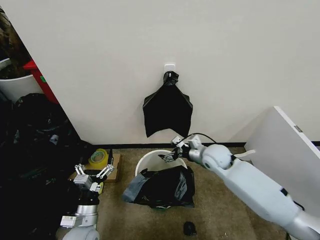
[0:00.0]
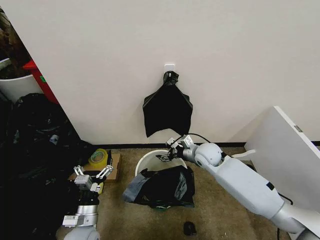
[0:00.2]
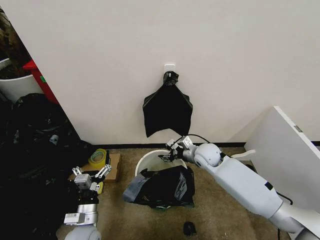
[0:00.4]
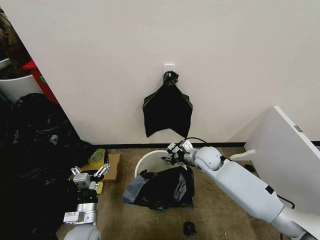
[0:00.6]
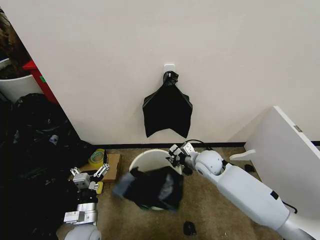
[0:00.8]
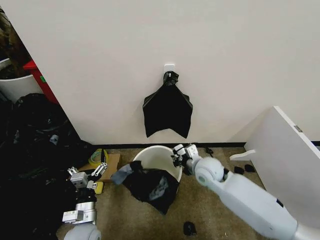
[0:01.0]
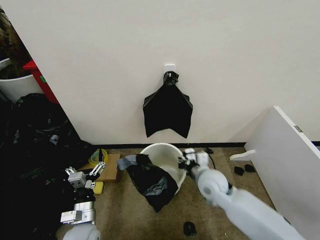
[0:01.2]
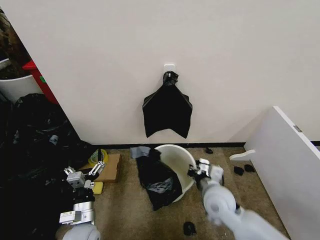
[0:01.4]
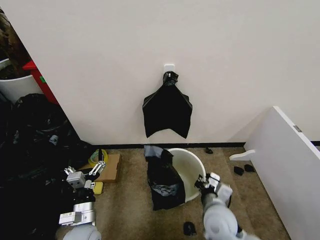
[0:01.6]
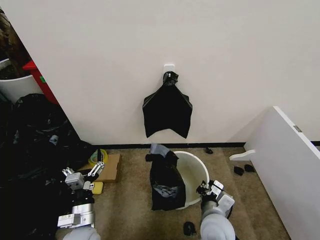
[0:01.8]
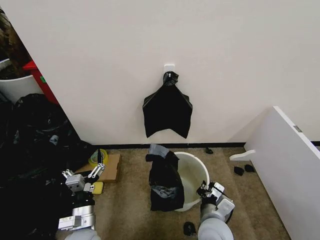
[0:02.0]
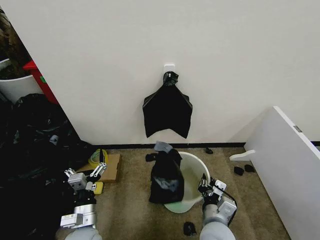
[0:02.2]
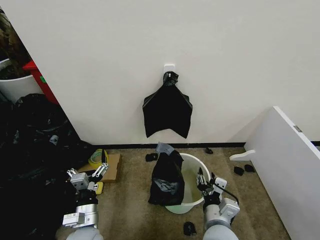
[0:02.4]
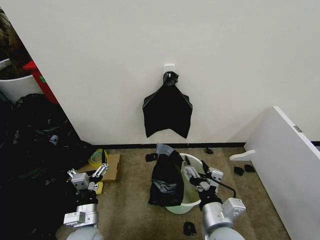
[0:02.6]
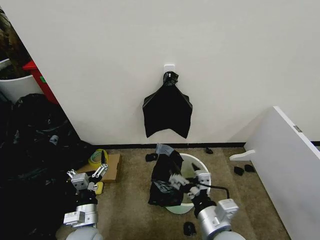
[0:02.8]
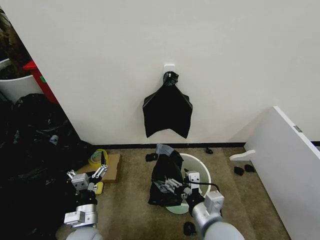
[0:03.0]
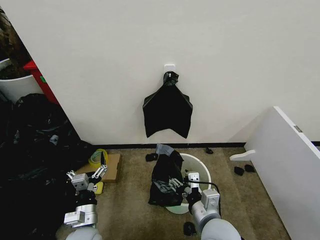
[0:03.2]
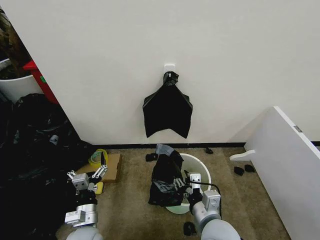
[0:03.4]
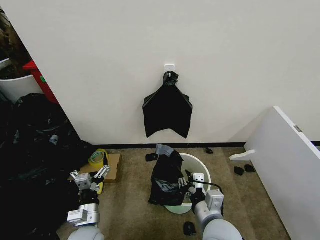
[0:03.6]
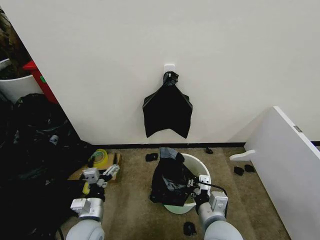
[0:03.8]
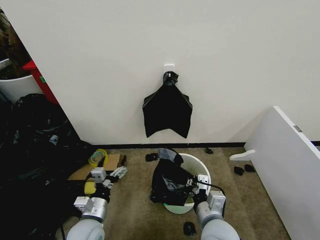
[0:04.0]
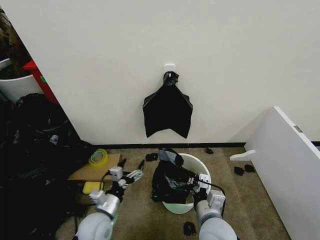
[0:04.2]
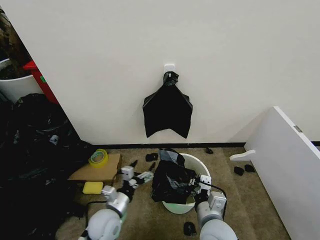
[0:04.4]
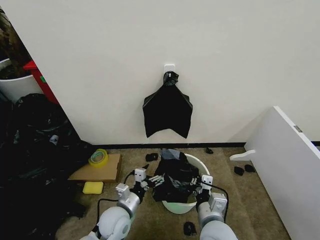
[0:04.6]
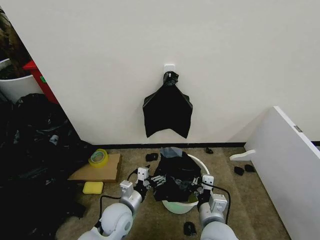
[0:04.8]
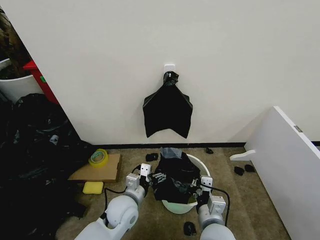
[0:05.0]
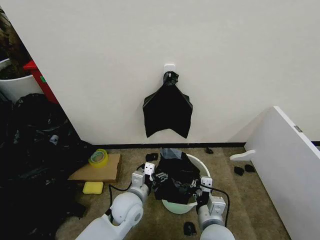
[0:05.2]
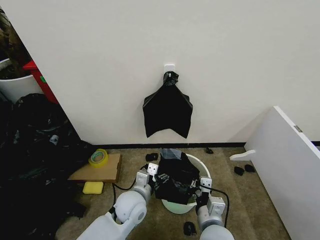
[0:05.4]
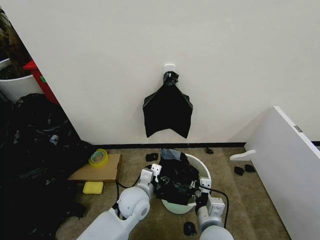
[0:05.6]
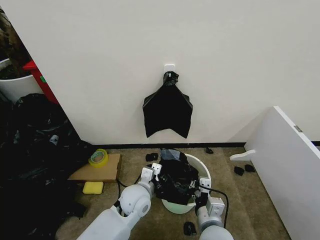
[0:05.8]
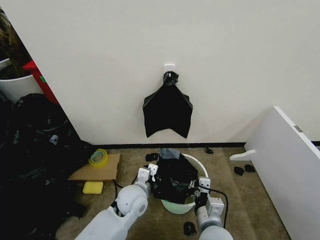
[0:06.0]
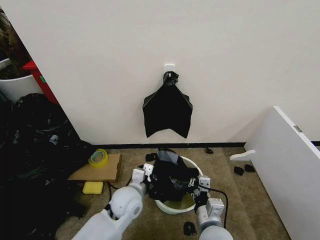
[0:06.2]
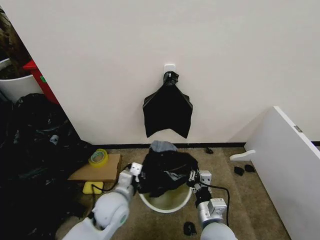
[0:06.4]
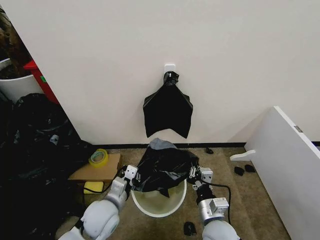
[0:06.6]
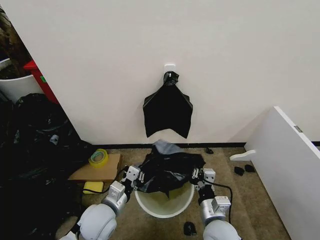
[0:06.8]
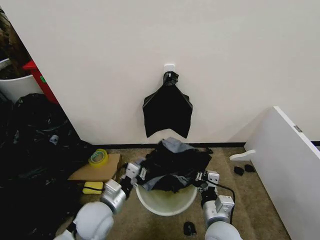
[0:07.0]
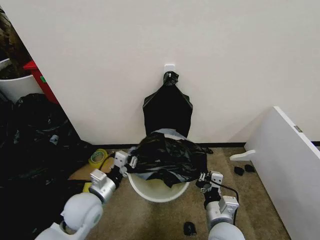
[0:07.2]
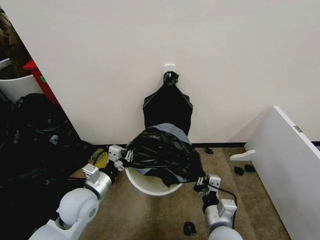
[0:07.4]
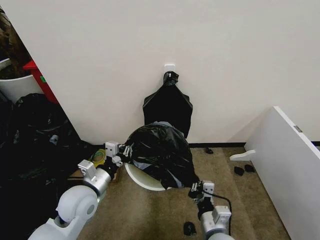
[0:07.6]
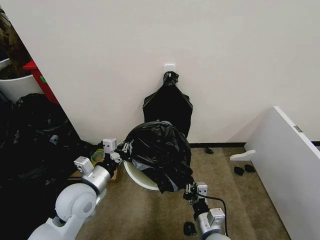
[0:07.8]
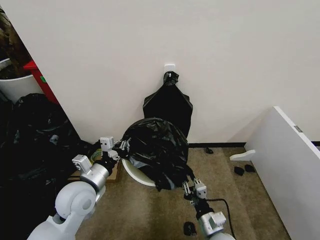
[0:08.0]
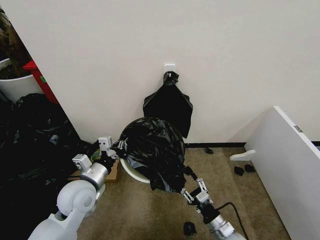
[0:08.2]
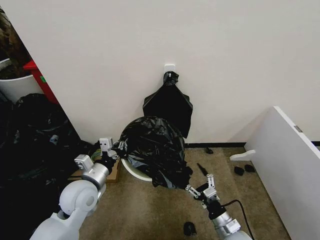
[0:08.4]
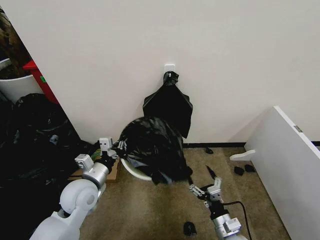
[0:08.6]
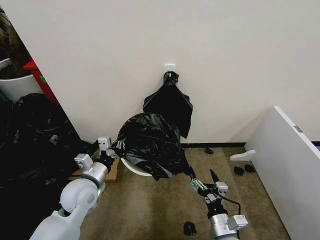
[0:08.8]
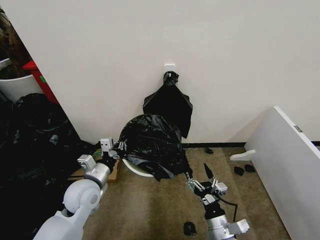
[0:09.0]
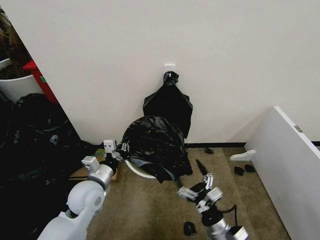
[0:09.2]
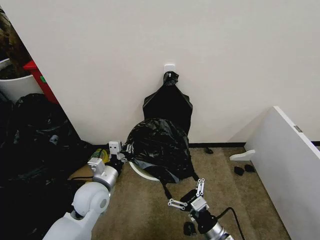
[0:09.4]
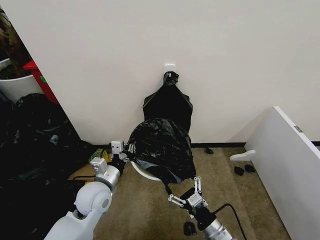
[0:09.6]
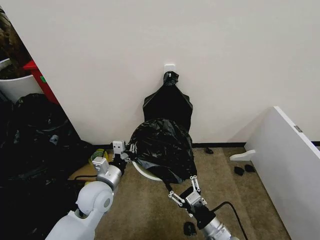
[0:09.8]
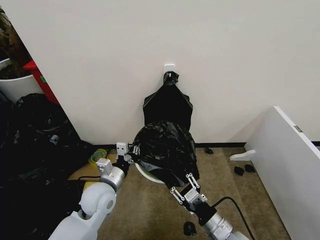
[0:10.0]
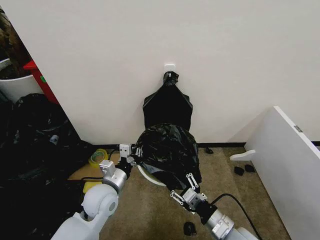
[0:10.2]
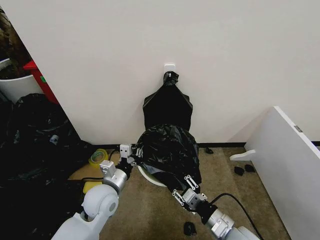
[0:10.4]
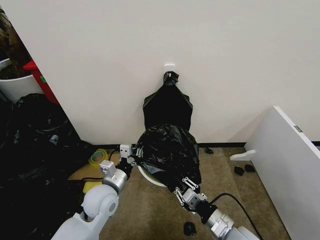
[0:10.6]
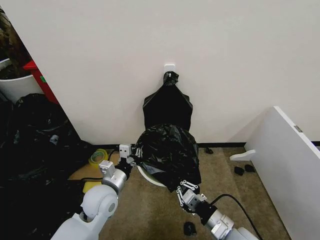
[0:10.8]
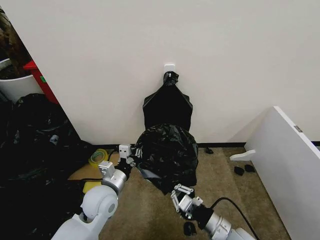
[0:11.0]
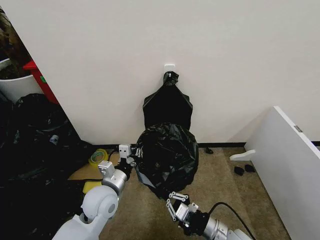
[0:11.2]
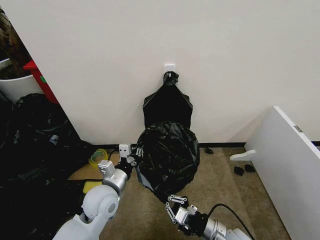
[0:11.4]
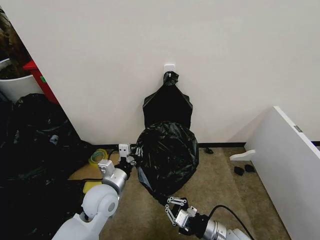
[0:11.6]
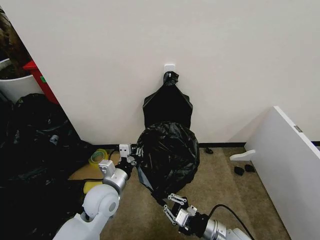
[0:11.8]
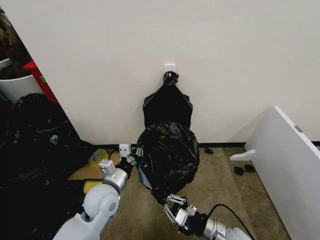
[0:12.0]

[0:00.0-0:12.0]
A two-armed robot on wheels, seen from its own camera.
Task of the whole recording: Place the garbage bag over the trash bin.
0:00.0 to 0:01.6: The right gripper moves backward, some 20 cm, and closes its fingers.
0:01.6 to 0:03.0: The right gripper moves upward and backward, approximately 10 cm, and opens its fingers.
0:03.0 to 0:04.4: The left gripper shifts by some 5 cm. Meanwhile the right gripper travels downward by approximately 5 cm, and closes up.
0:04.4 to 0:06.0: The left gripper is displaced to the right and forward by about 10 cm, and closes its fingers.
0:06.0 to 0:07.6: The left gripper goes some 15 cm to the left and upward.
0:07.6 to 0:09.0: The right gripper opens.
0:09.0 to 0:10.4: The right gripper heads upward, covering roughly 5 cm, and closes its fingers, while the left gripper goes about 5 cm to the right.
0:10.4 to 0:12.0: The right gripper closes its fingers.

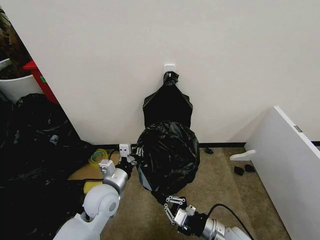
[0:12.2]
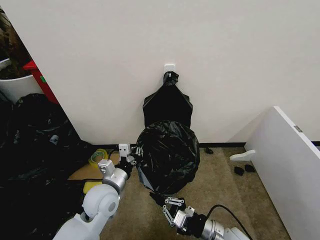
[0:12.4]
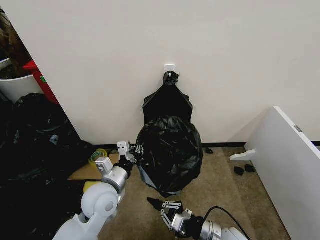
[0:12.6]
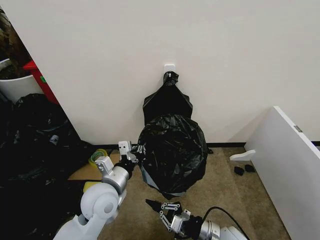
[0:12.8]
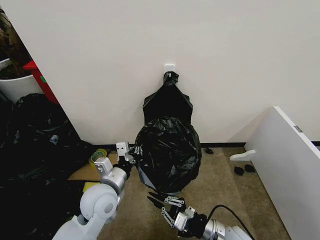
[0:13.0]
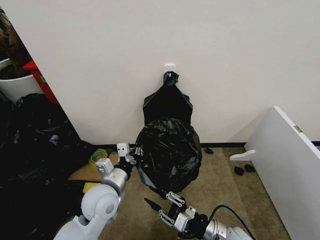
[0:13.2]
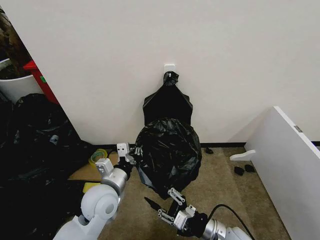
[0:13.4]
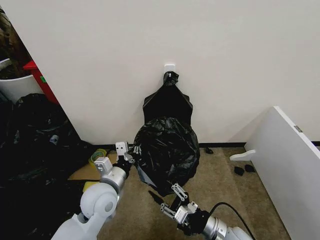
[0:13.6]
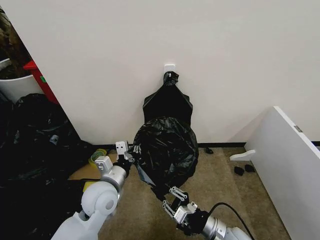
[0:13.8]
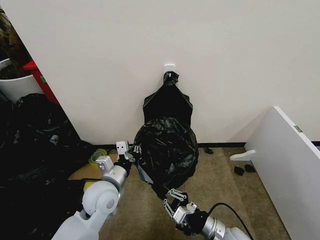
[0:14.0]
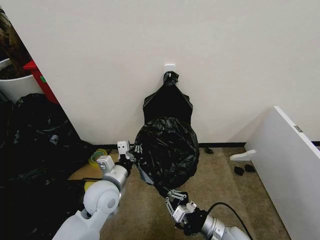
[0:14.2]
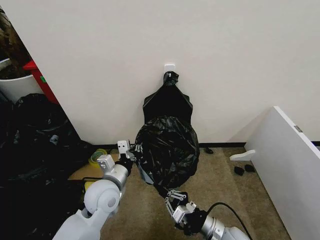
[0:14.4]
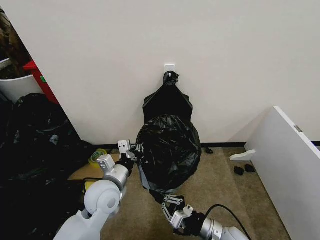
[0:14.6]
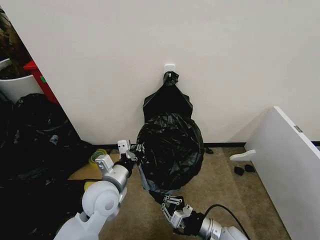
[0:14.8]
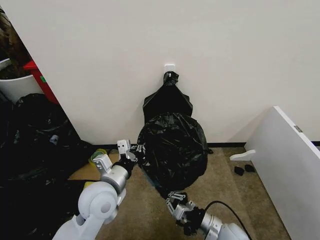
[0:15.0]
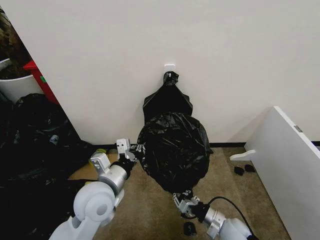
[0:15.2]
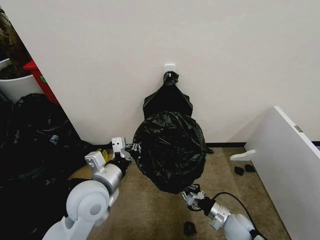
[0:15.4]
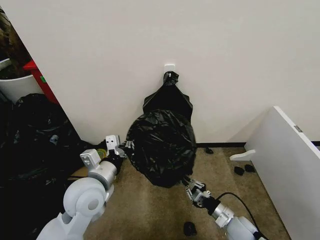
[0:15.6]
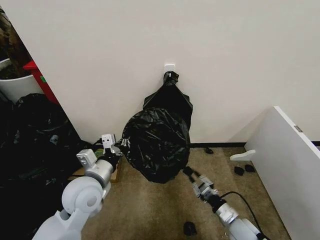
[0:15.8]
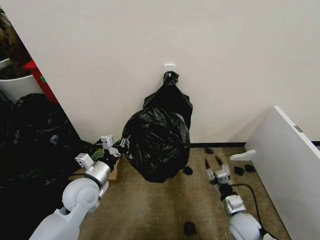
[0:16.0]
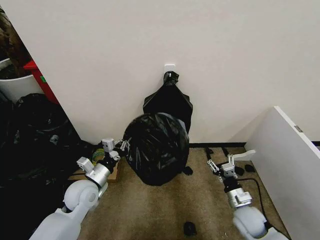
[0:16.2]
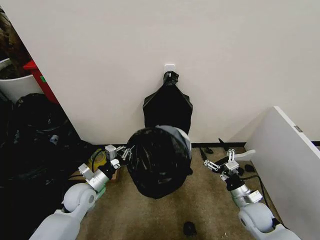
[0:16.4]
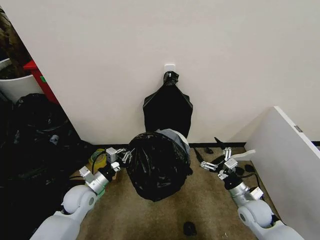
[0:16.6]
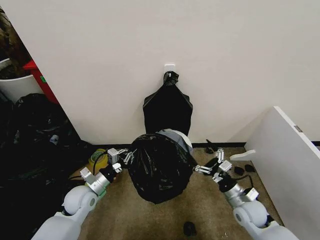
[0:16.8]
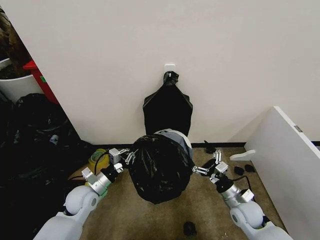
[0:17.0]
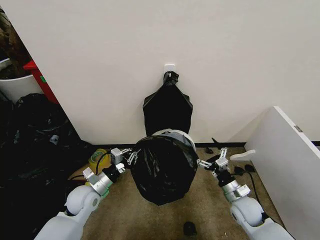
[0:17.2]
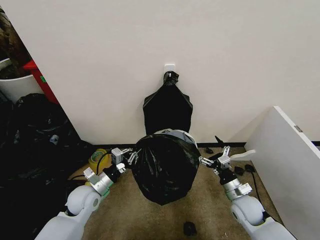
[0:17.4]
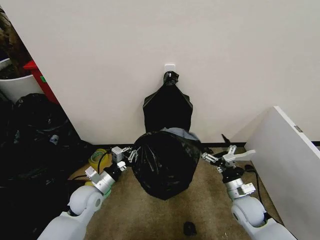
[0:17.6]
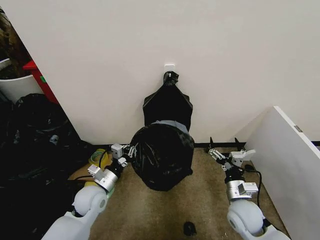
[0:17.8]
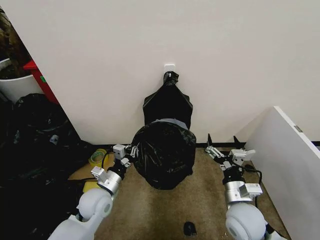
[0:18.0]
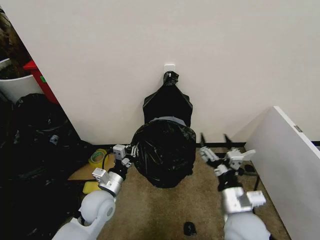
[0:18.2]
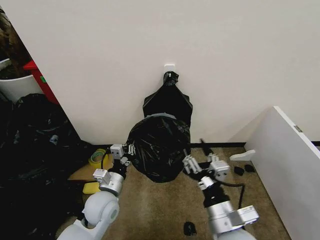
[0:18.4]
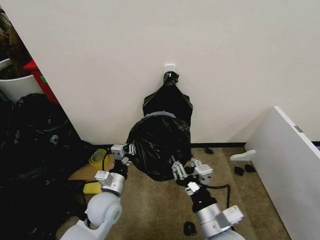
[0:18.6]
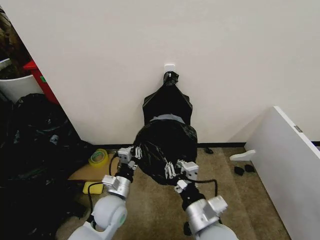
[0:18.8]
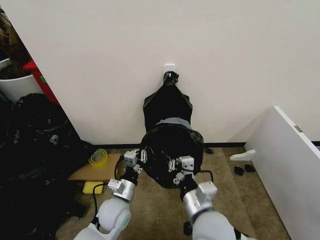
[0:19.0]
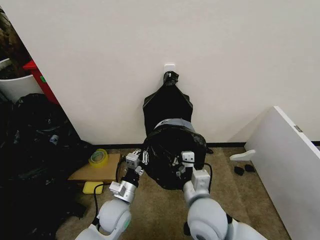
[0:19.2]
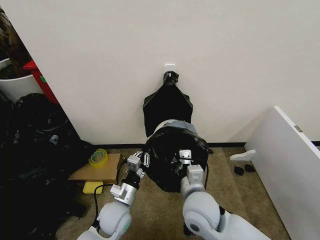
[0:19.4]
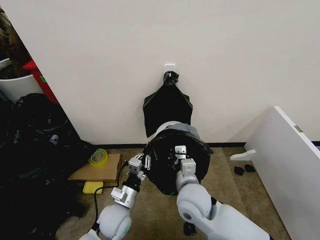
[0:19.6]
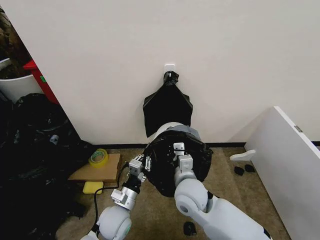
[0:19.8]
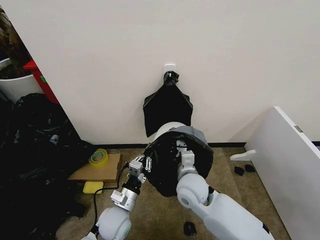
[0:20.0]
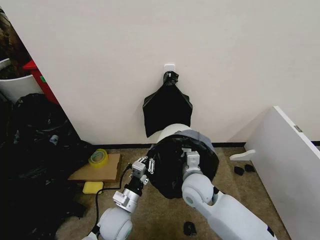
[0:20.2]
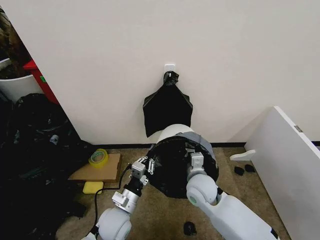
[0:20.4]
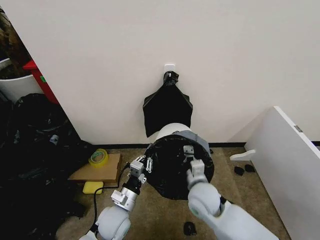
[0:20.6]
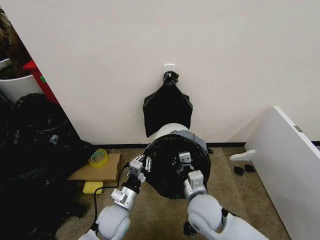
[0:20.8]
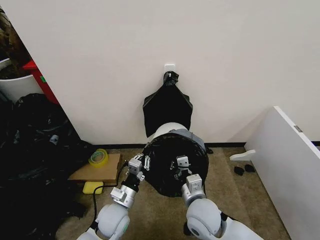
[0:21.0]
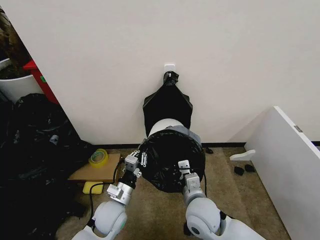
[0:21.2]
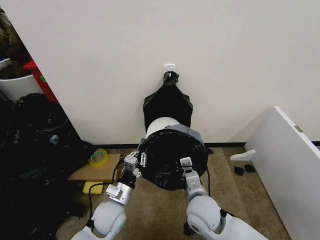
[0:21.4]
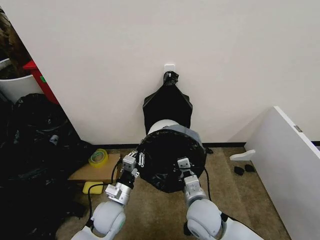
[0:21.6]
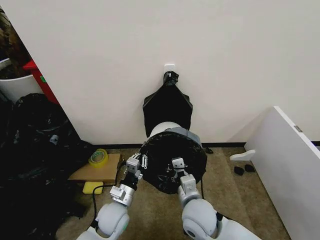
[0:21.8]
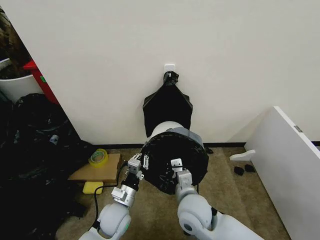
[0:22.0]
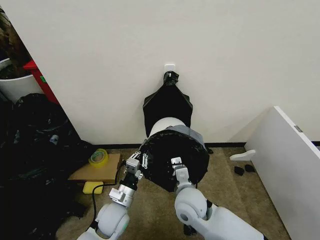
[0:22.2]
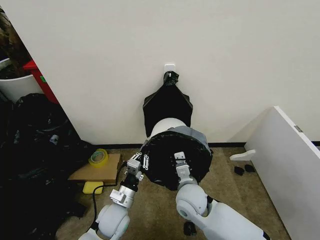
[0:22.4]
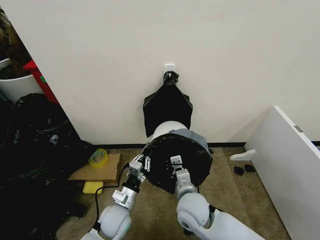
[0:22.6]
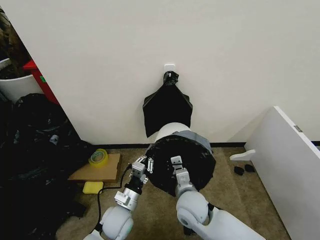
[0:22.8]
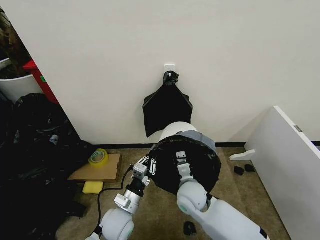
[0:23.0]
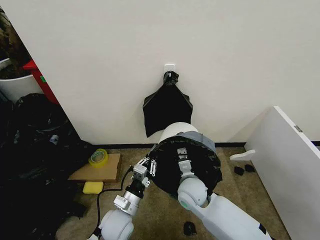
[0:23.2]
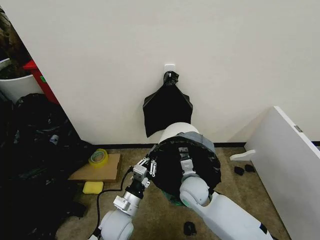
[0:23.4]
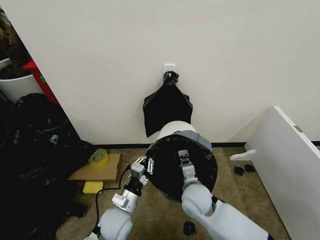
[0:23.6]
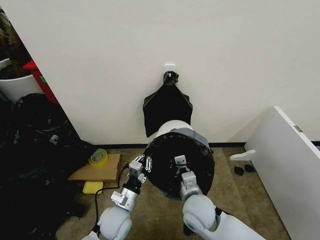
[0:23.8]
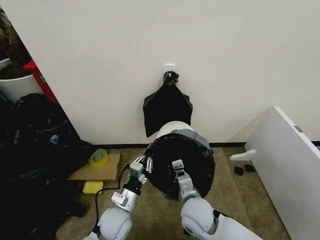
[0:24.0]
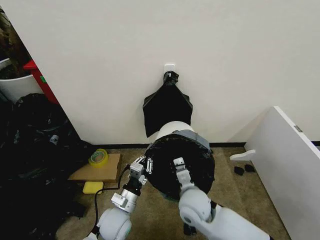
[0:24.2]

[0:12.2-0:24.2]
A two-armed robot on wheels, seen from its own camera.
Task of the whole recording: Place the garbage bag over the trash bin.
0:12.2 to 0:13.8: The grippers make only small movements.
0:13.8 to 0:15.2: The right gripper changes place by approximately 5 cm.
0:15.2 to 0:16.6: The left gripper heads downward, to the left and forward, covering roughly 20 cm. Meanwhile the right gripper goes some 10 cm to the right and forward, and opens.
0:16.6 to 0:18.2: The left gripper goes some 10 cm to the right, while the right gripper goes roughly 20 cm upward, to the left and backward.
0:18.2 to 0:19.8: The left gripper moves to the right, some 5 cm, while the right gripper is displaced to the left and forward by approximately 15 cm, and closes.
0:19.8 to 0:21.2: The right gripper moves roughly 5 cm.
0:21.2 to 0:22.6: The grippers make only small movements.
0:22.6 to 0:24.2: The right gripper reaches some 5 cm forward, then returns.
